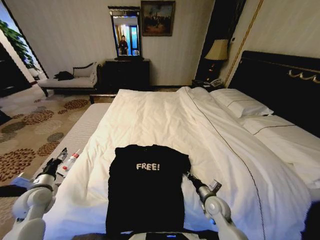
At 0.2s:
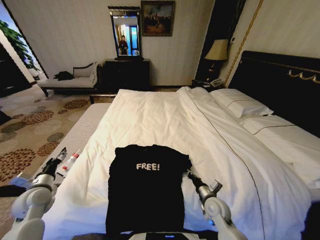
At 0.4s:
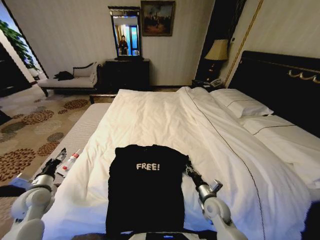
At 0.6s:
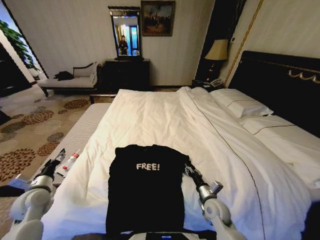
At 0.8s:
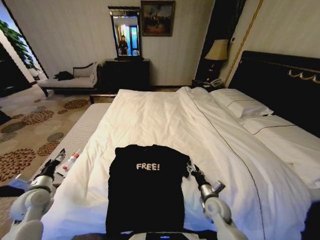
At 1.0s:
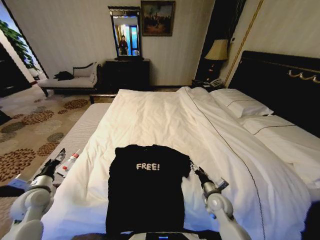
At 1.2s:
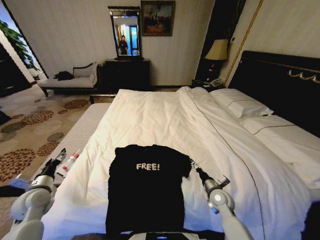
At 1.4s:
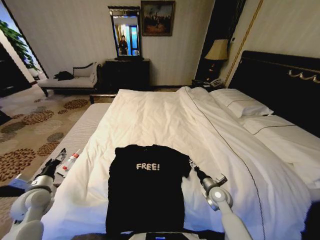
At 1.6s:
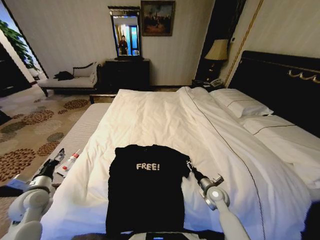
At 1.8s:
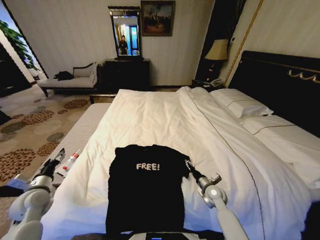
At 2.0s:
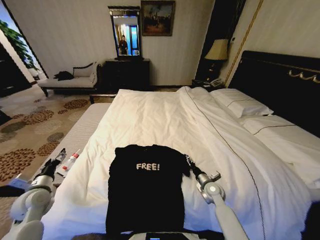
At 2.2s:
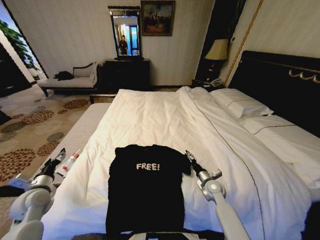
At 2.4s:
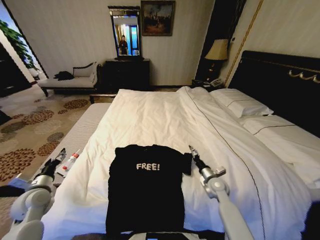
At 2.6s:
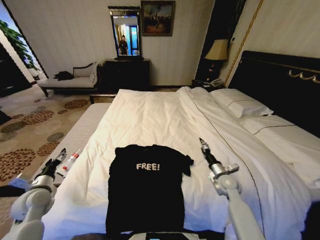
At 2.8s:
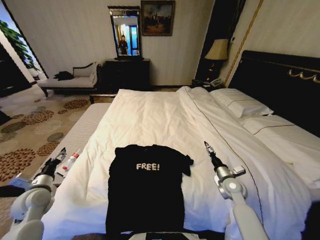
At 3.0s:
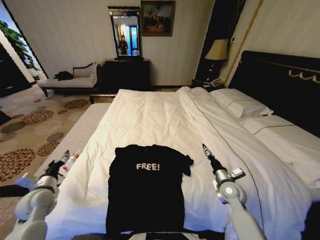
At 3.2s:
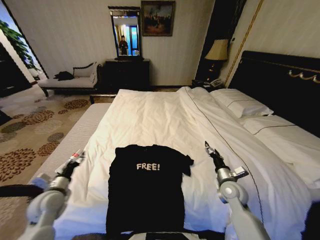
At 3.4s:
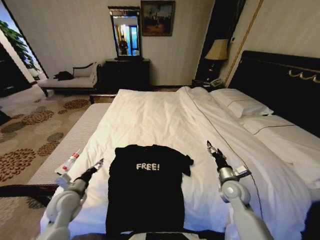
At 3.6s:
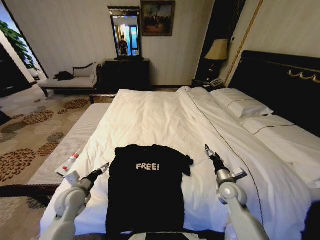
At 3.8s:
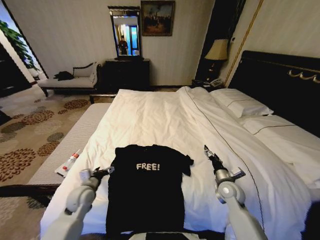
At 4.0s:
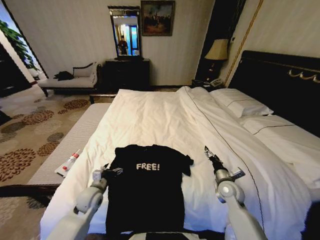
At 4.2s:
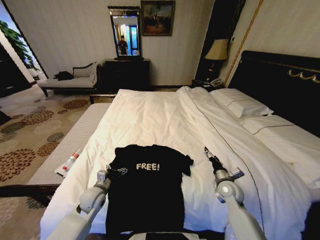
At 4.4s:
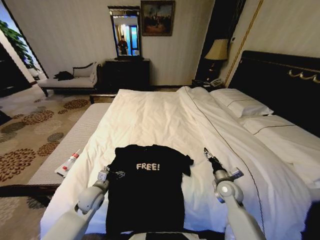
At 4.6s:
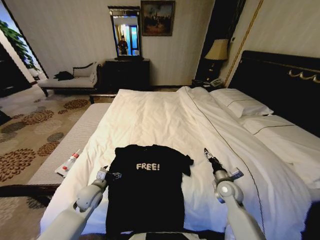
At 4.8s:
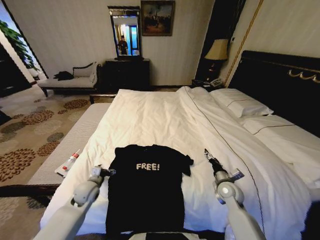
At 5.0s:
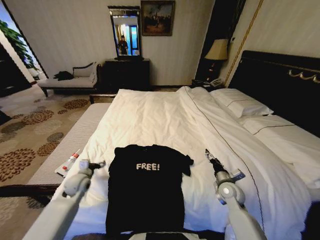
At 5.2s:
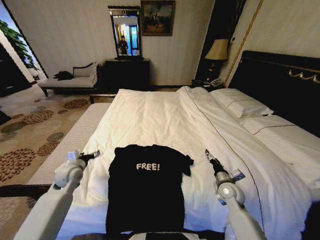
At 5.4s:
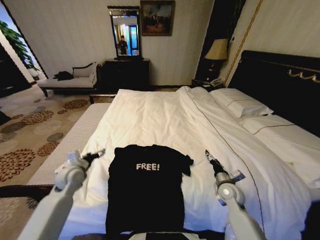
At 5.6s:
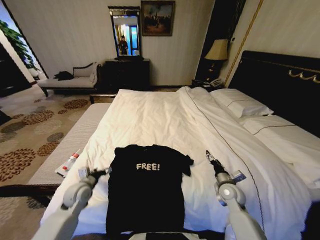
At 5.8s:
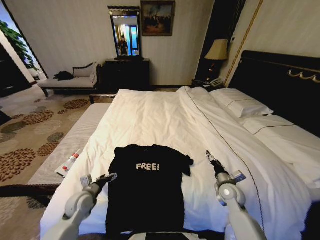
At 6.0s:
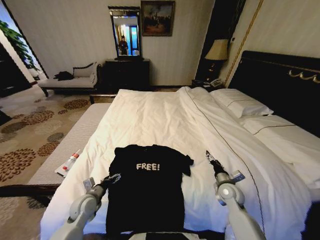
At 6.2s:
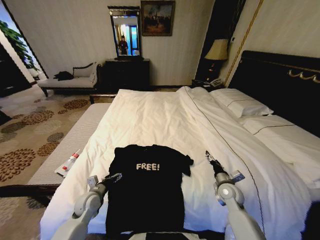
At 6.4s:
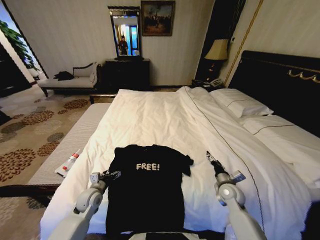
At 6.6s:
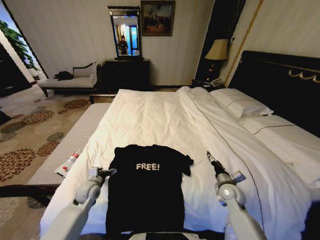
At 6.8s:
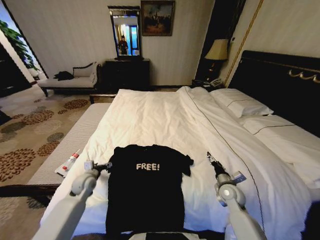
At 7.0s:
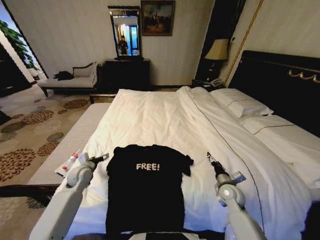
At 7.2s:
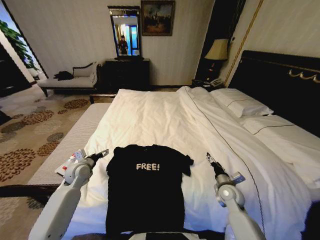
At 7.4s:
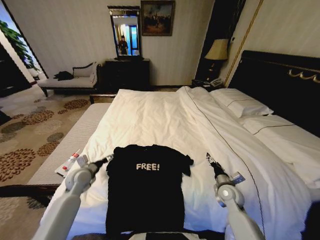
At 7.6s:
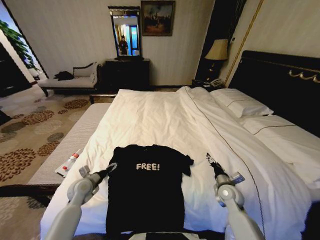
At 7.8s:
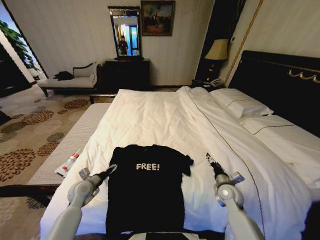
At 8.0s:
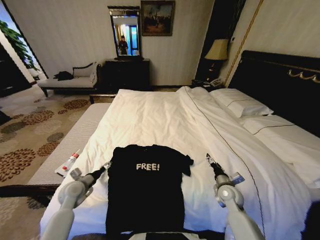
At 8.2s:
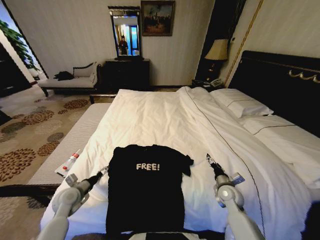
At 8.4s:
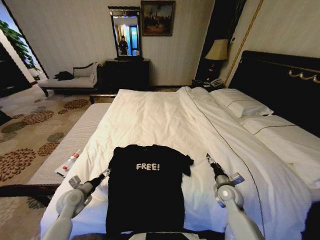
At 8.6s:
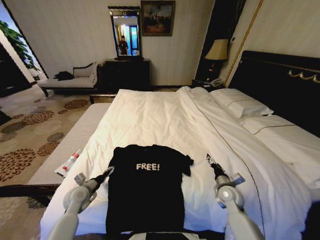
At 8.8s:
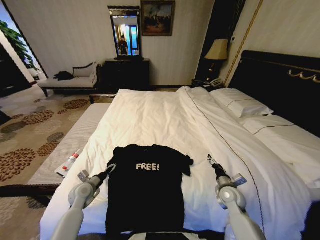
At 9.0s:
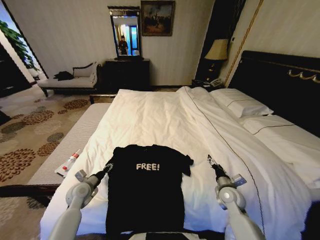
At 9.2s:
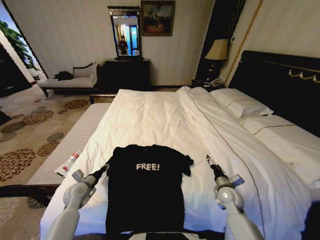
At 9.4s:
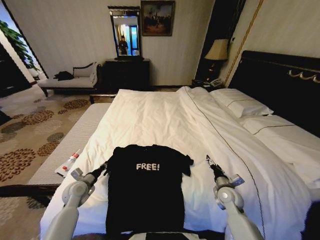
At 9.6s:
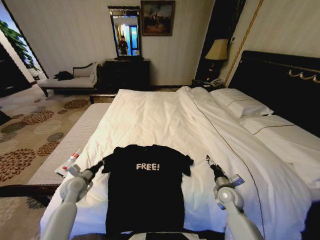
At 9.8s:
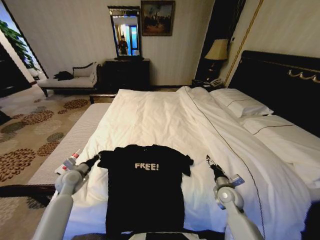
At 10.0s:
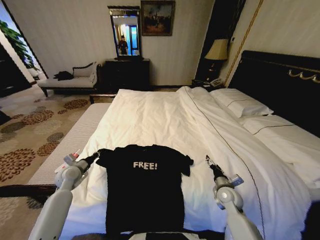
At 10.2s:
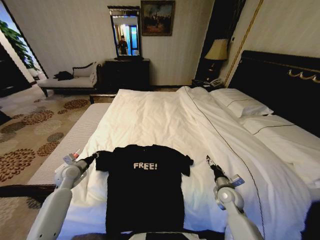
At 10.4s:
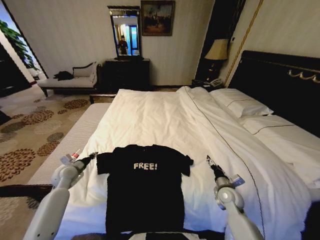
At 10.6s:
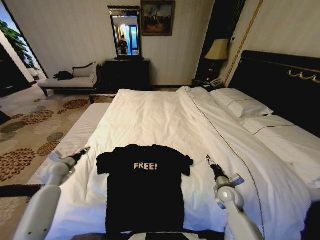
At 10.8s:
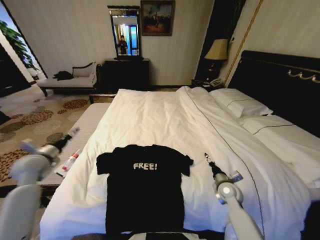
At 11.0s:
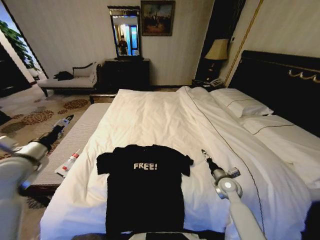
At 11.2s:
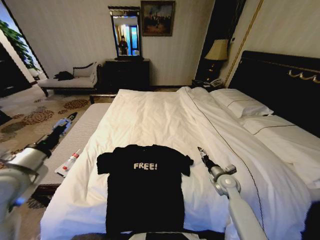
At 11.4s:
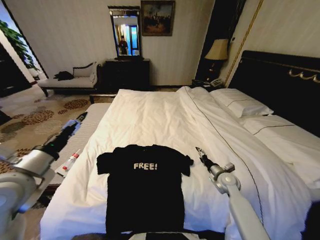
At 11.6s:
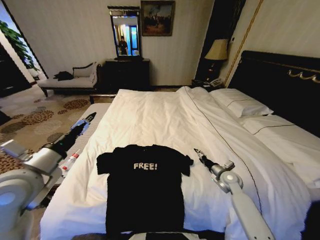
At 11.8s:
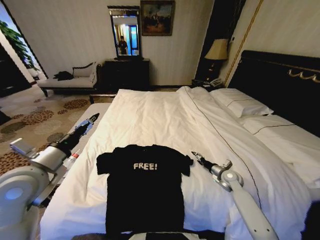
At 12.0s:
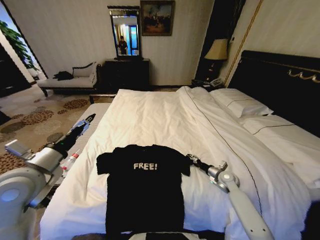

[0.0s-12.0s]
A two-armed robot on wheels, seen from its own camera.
Task of the whole recording: Fold the clothes on the bed.
0.0s to 1.6s: The right gripper moves roughly 5 cm, and opens up.
1.6s to 3.0s: The right gripper moves upward, roughly 5 cm.
3.0s to 4.4s: The left gripper shifts about 20 cm to the right.
4.4s to 6.0s: The left gripper goes to the left and returns, roughly 10 cm each way.
6.0s to 7.6s: The left gripper shifts some 5 cm forward.
7.6s to 9.0s: The left gripper closes.
9.0s to 10.4s: The left gripper shifts roughly 10 cm to the left and forward, and closes up.
10.4s to 12.0s: The left gripper heads upward and backward, covering about 25 cm, and opens up; the right gripper goes about 10 cm forward.

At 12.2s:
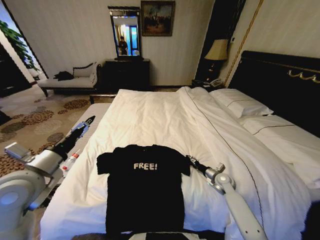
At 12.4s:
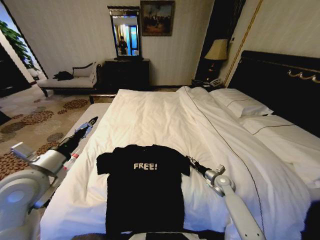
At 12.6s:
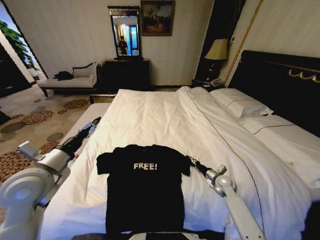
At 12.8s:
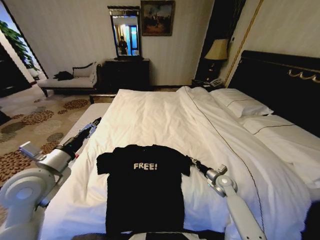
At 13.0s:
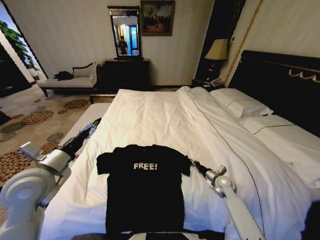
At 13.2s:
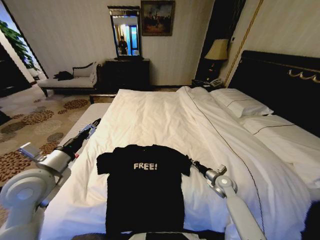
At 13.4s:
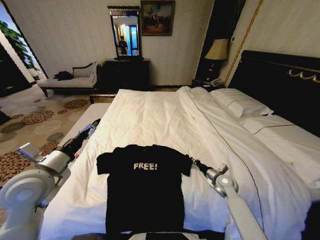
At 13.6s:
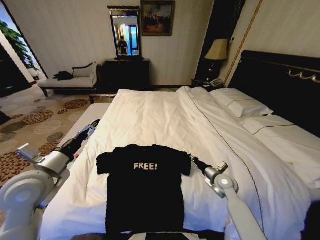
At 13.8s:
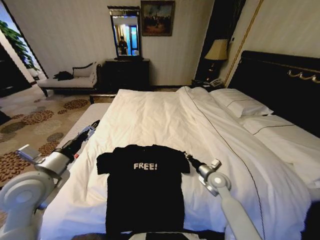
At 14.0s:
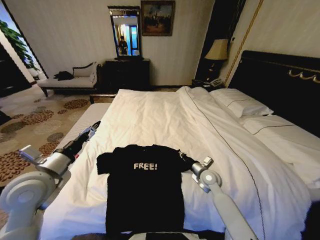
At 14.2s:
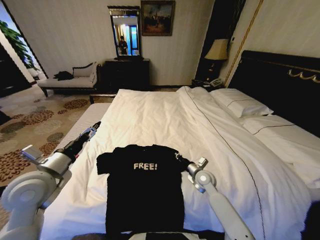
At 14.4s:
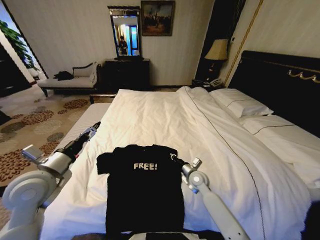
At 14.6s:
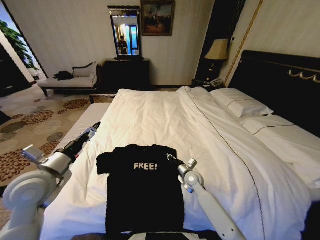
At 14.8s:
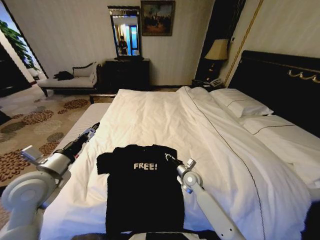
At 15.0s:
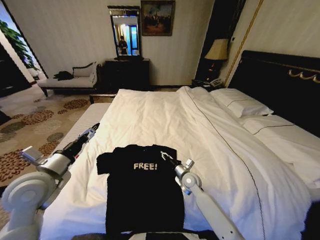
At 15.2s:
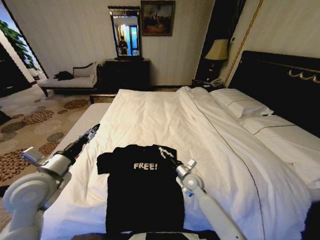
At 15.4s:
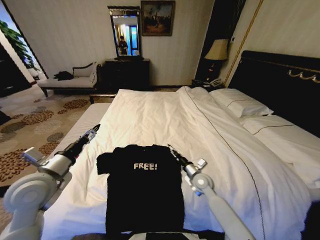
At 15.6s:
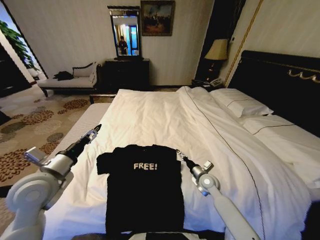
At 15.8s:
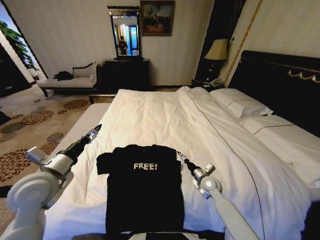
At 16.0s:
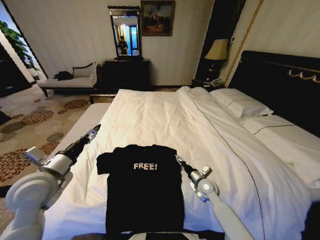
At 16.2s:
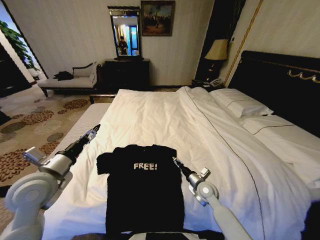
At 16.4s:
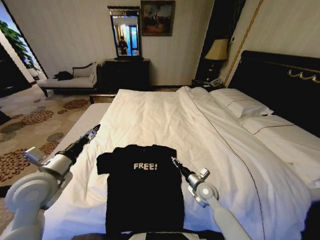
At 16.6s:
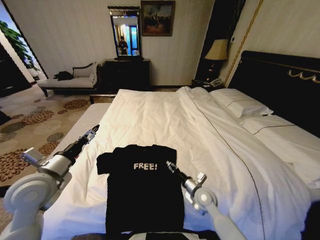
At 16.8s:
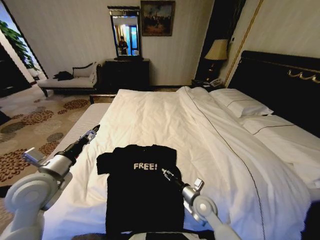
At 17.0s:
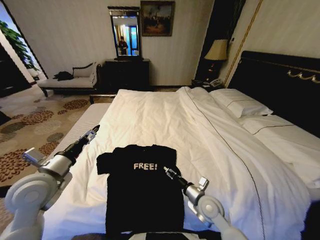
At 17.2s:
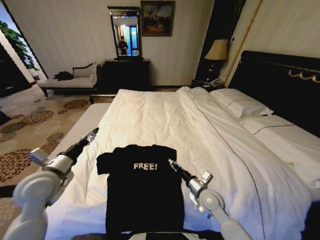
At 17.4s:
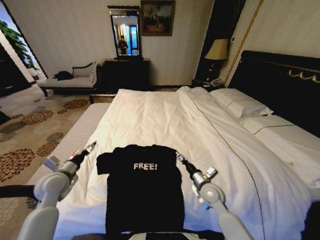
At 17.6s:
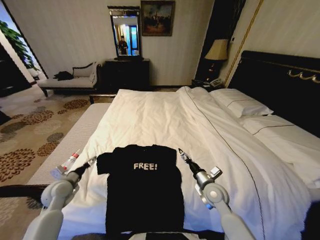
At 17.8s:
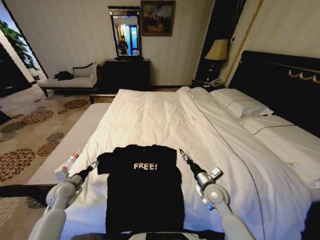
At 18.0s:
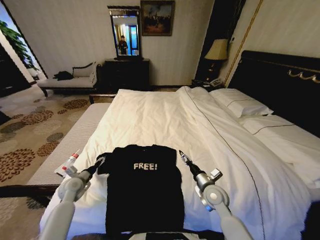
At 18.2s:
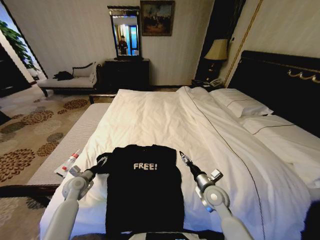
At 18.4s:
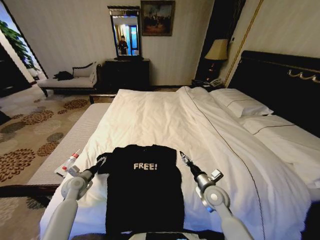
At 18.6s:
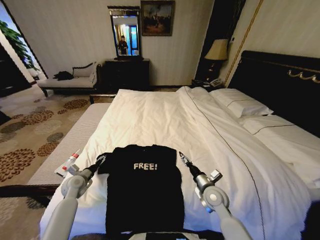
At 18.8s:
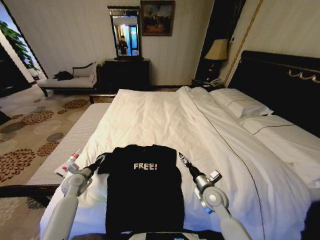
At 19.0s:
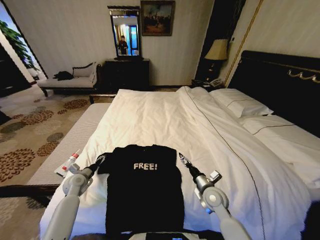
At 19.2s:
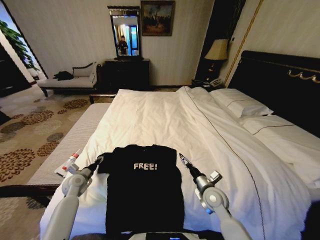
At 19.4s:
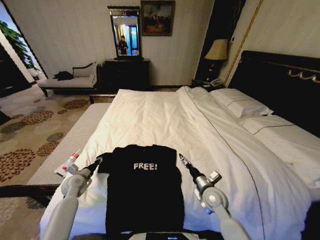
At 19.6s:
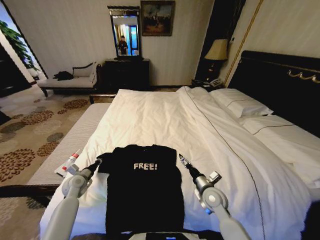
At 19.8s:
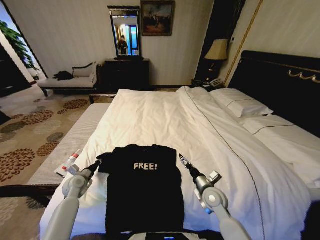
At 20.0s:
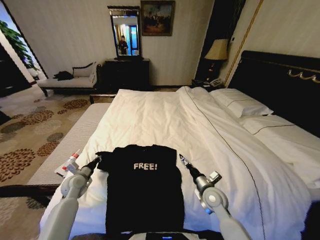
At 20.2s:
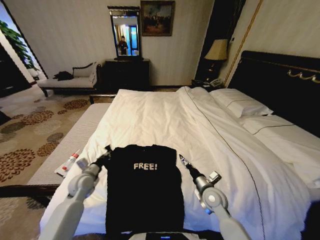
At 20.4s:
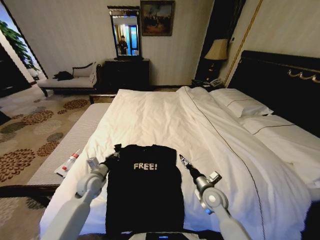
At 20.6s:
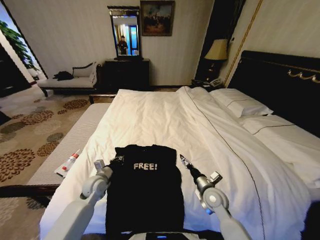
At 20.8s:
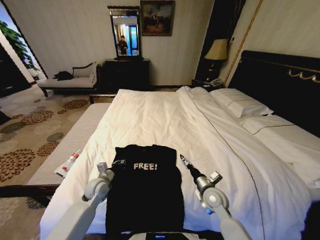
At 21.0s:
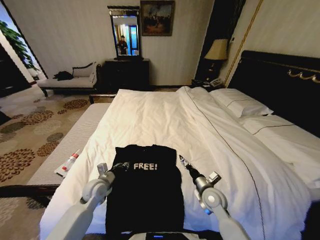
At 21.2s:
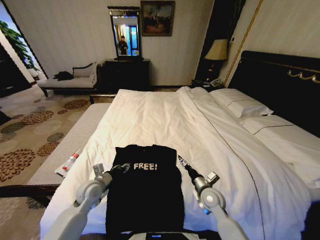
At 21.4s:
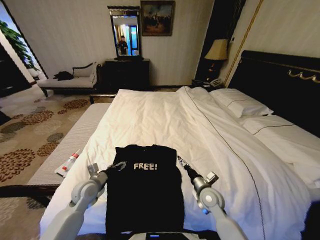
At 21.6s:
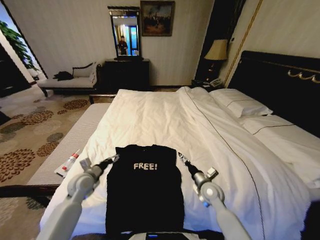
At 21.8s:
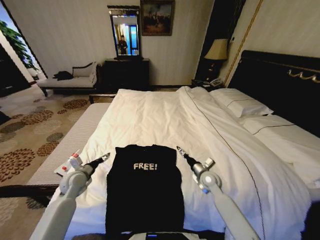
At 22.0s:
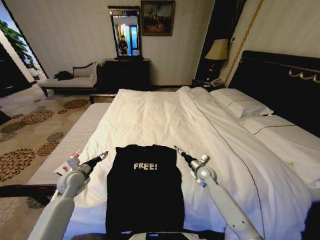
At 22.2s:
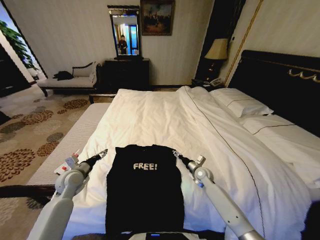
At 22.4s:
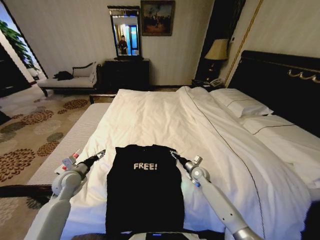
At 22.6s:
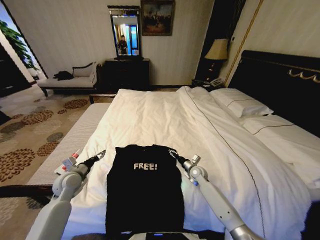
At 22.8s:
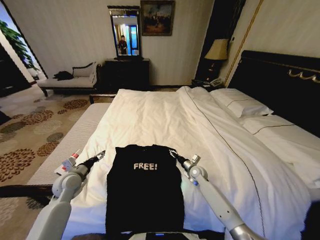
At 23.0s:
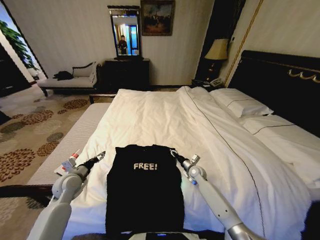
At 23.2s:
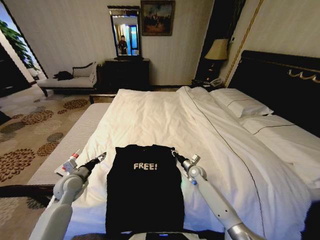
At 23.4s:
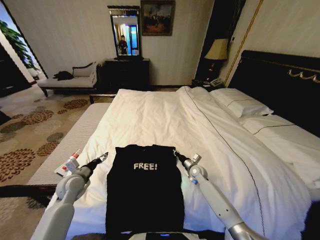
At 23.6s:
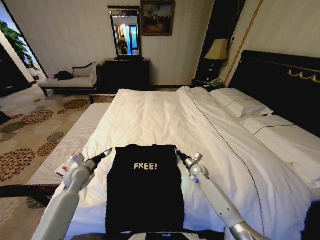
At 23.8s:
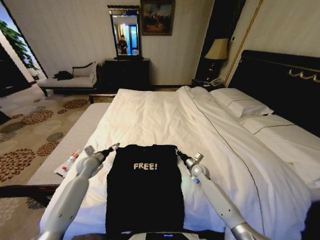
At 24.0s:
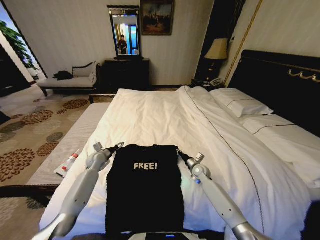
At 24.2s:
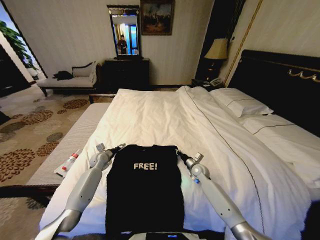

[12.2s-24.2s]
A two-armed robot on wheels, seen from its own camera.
Task of the whole recording: Fold the clothes on the bed.
12.2s to 13.8s: The right gripper is displaced to the left and upward by about 10 cm, and closes up.
13.8s to 15.2s: The right gripper travels to the left by roughly 10 cm, and opens.
15.2s to 16.6s: The right gripper moves backward, roughly 5 cm, reaches about 10 cm to the right, then returns, and opens.
16.6s to 18.2s: The left gripper travels downward and forward by about 25 cm.
18.2s to 19.8s: The left gripper closes.
19.8s to 21.2s: The left gripper moves to the right and upward, approximately 15 cm, and opens up.
21.2s to 22.6s: The left gripper moves to the left, roughly 10 cm, and opens; the right gripper moves forward and downward, some 15 cm.
22.6s to 24.2s: The right gripper closes its fingers. The left gripper shifts roughly 20 cm forward and downward.
